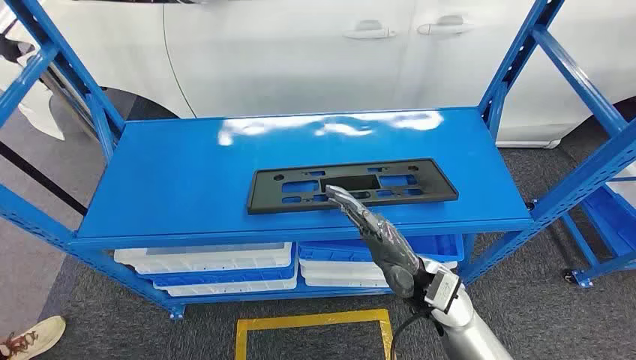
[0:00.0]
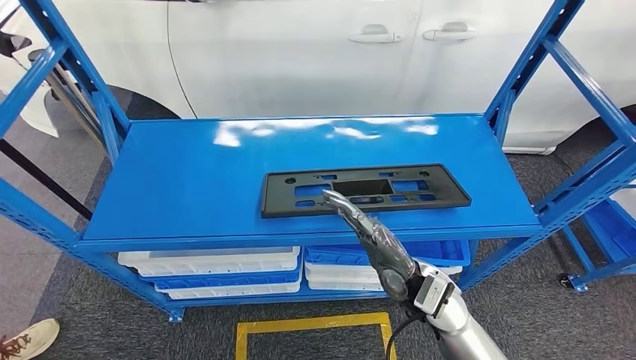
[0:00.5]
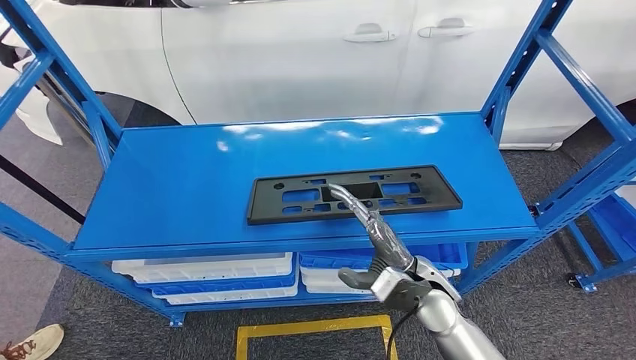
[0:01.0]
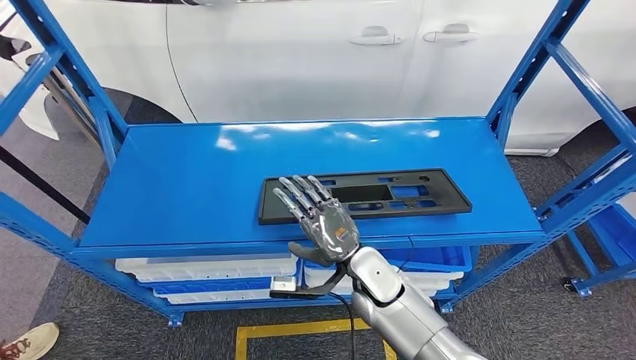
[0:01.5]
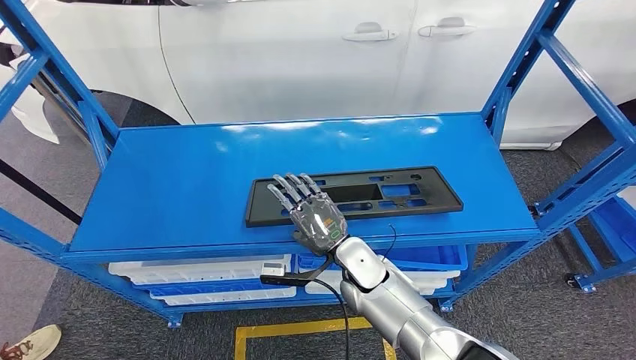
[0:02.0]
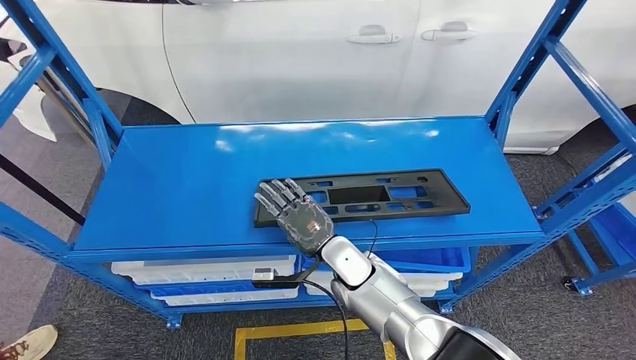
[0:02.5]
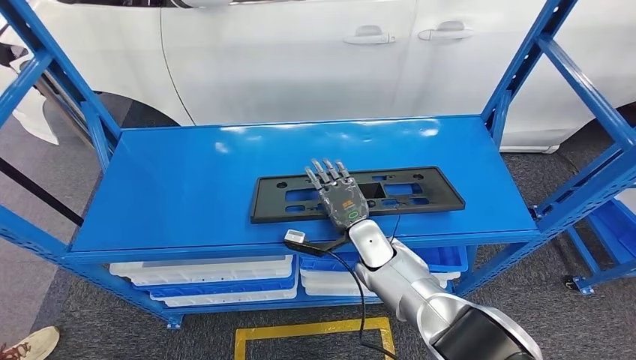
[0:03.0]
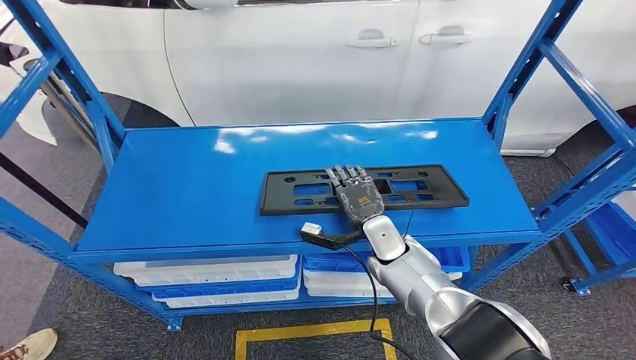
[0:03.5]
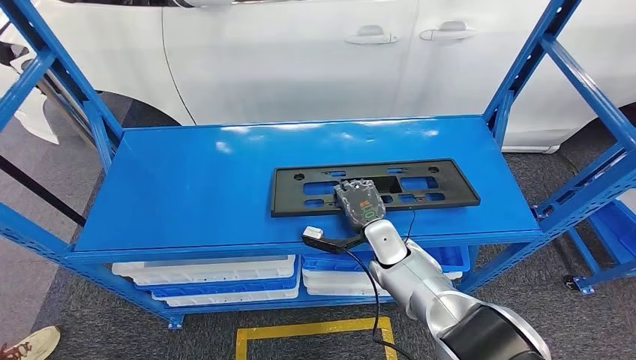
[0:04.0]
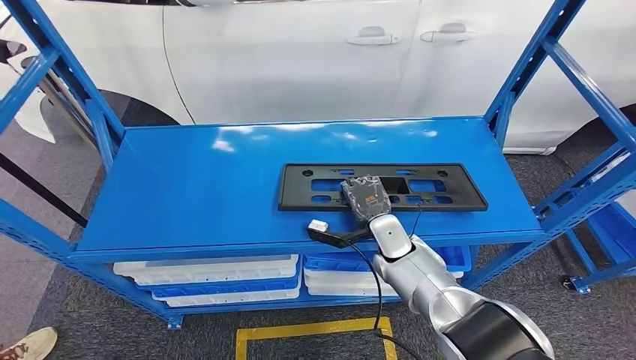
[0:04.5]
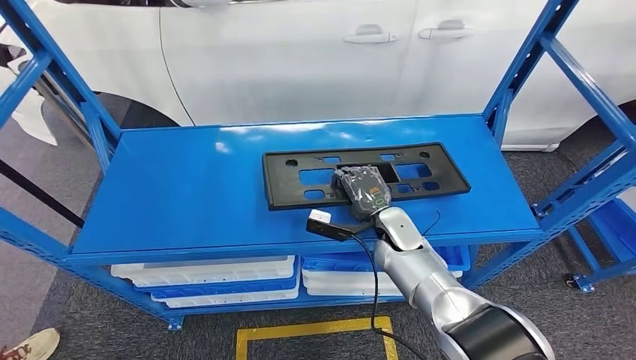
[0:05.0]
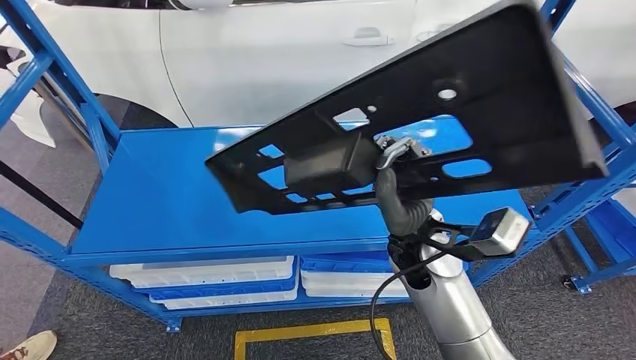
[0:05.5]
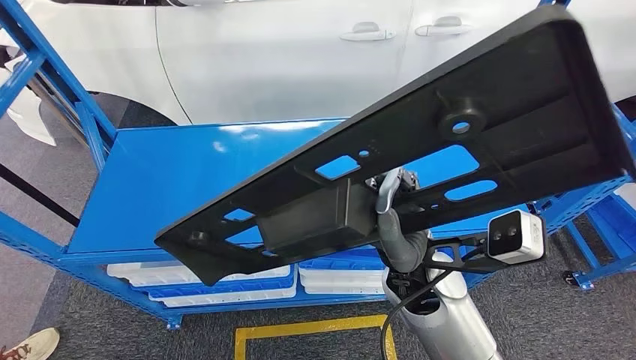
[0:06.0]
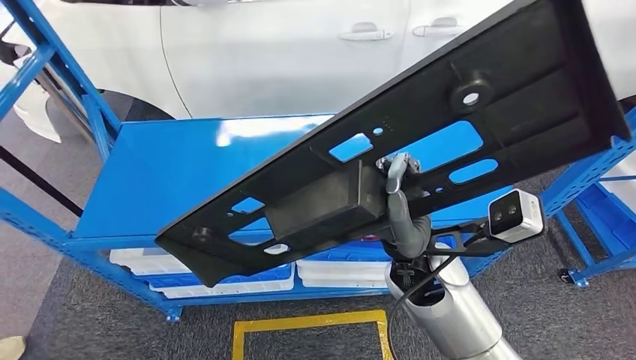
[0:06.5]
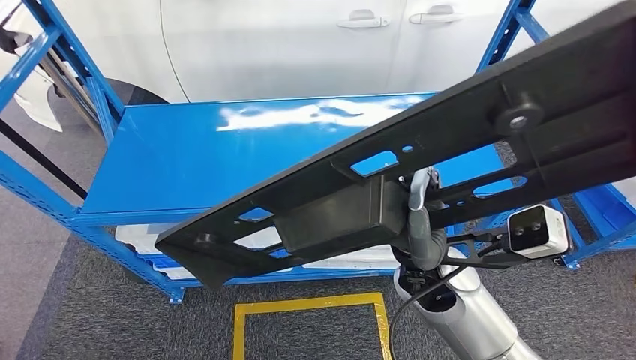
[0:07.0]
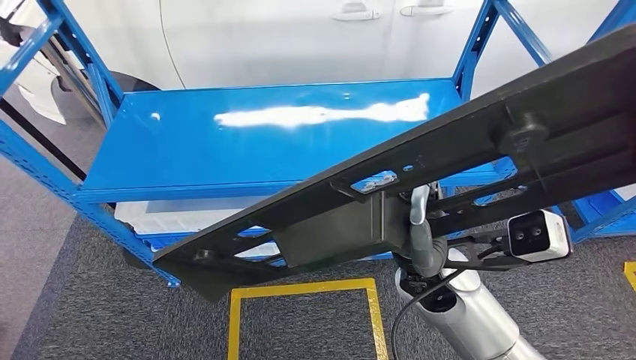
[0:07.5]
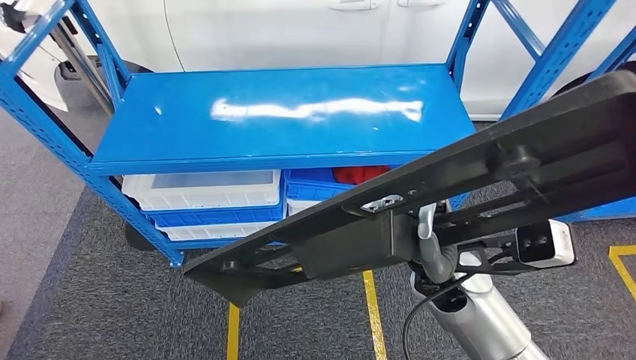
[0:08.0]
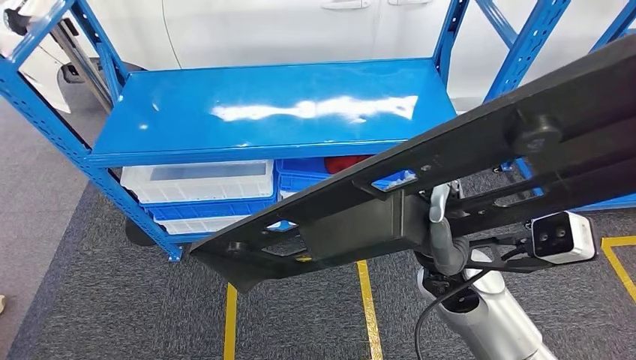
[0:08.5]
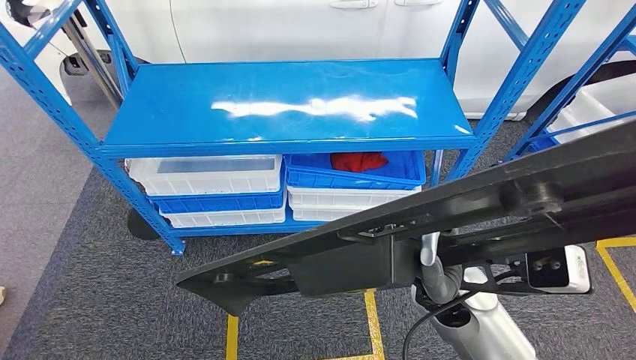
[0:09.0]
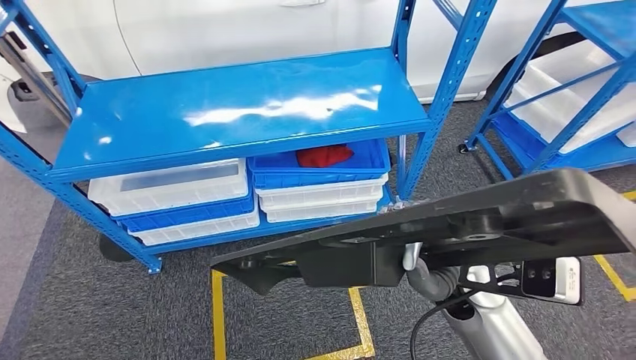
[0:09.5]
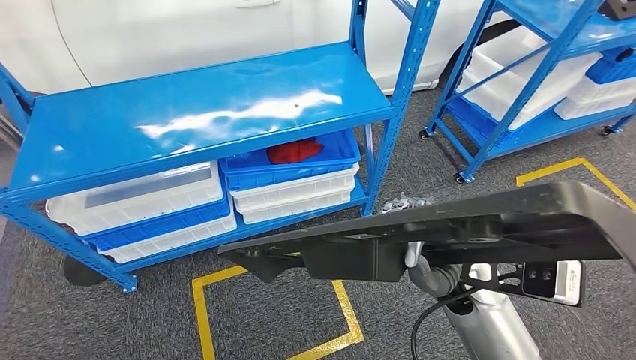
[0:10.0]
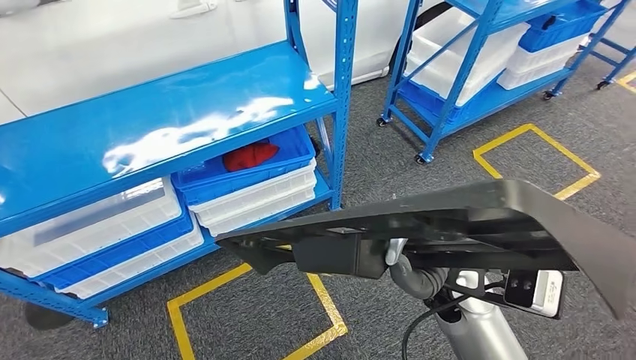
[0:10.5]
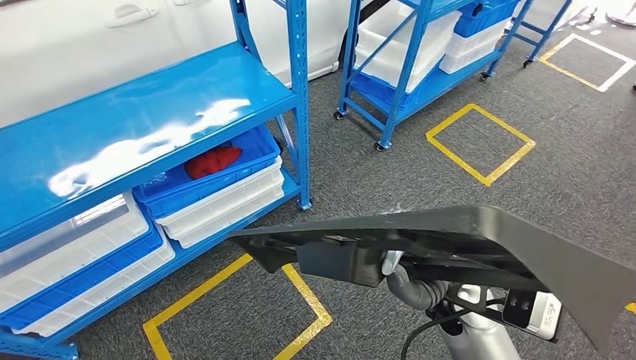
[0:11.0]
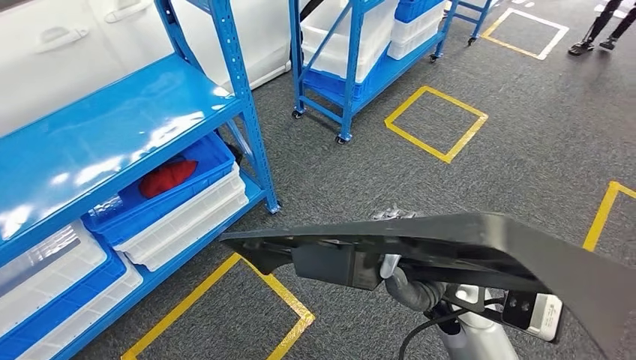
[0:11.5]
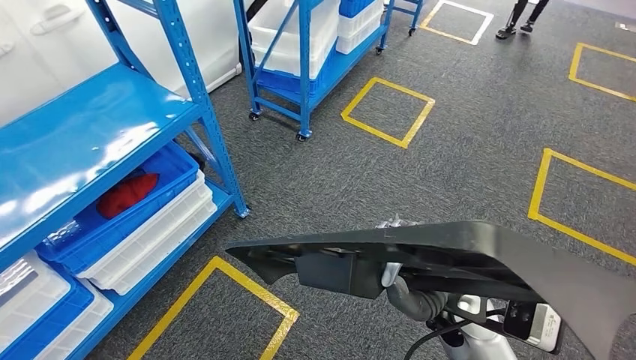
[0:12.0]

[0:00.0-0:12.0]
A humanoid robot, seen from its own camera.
Step, 0:00.0 to 0:06.0: Pick up the large material from the shelf.
0:02.0 to 0:04.0: The right hand is displaced to the right by some 10 cm.

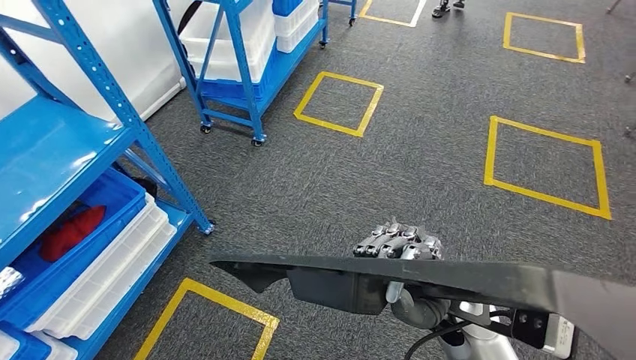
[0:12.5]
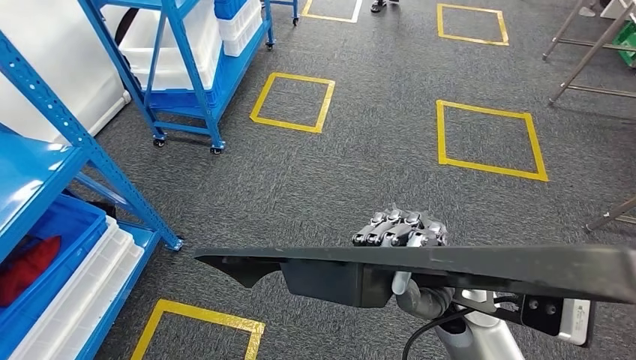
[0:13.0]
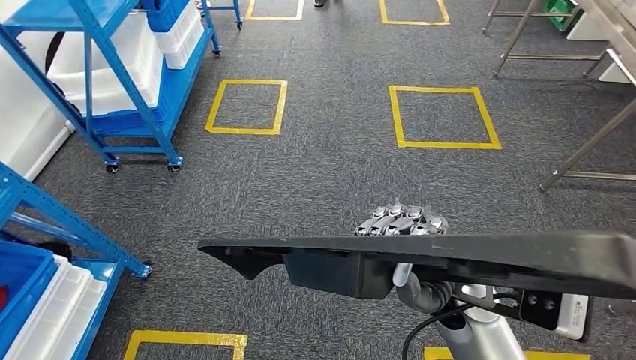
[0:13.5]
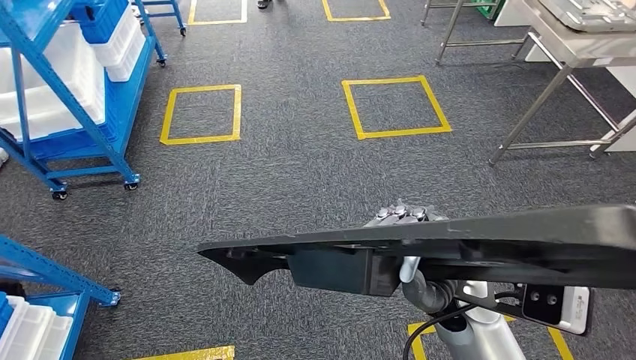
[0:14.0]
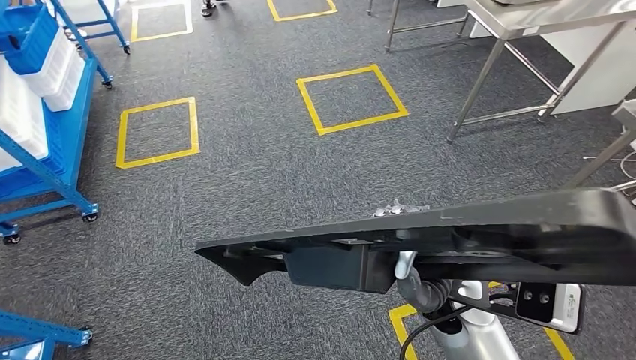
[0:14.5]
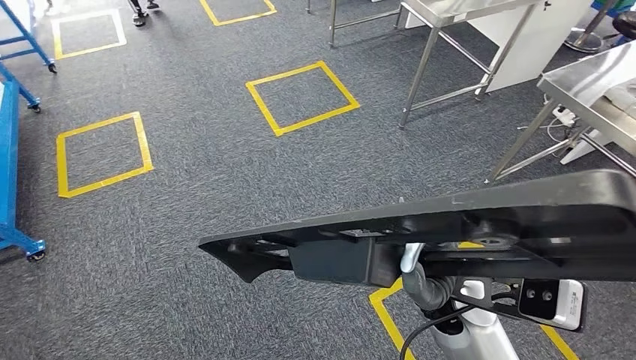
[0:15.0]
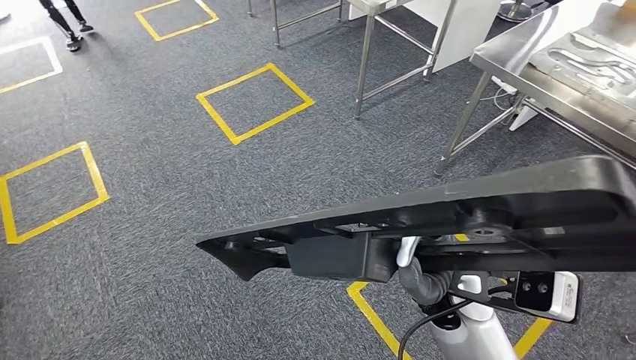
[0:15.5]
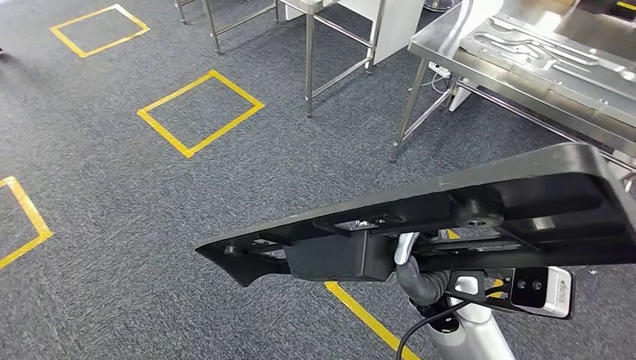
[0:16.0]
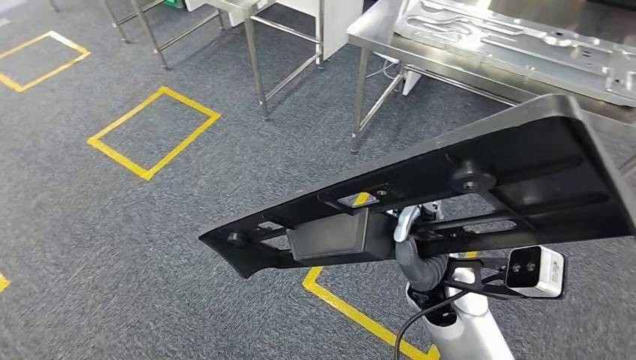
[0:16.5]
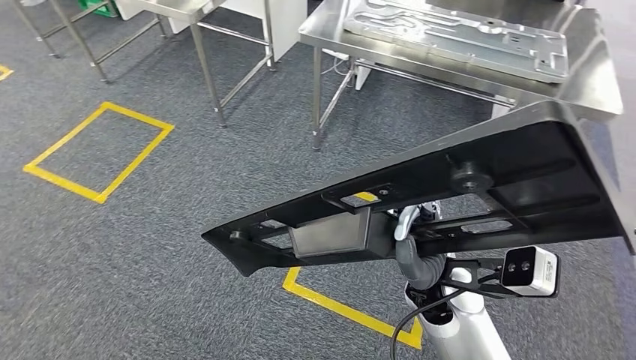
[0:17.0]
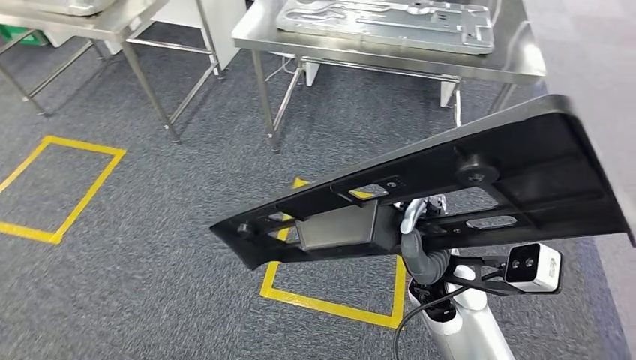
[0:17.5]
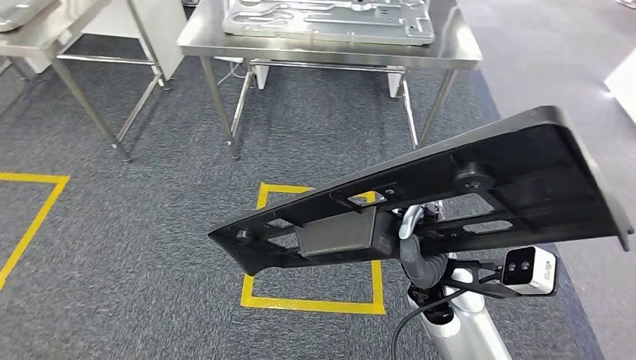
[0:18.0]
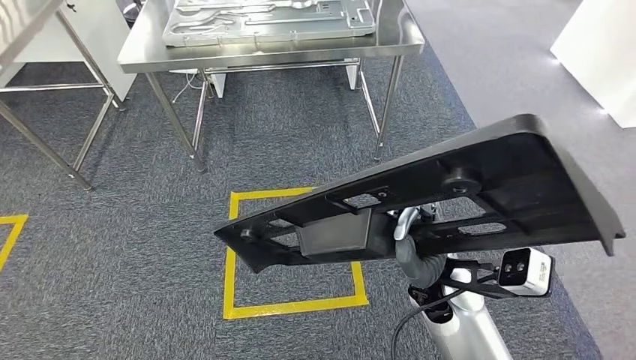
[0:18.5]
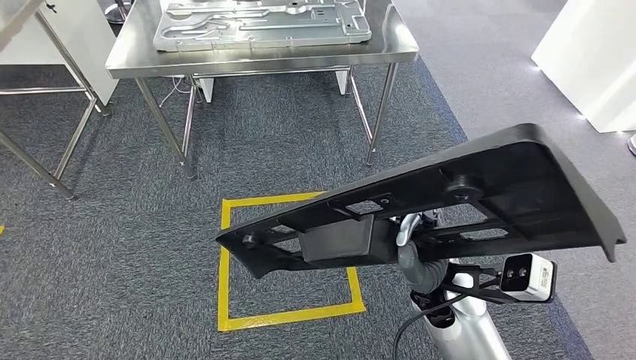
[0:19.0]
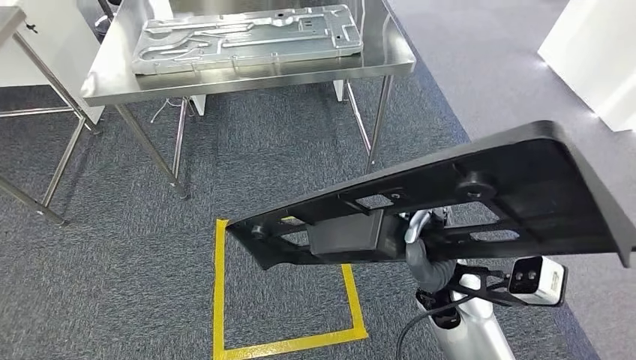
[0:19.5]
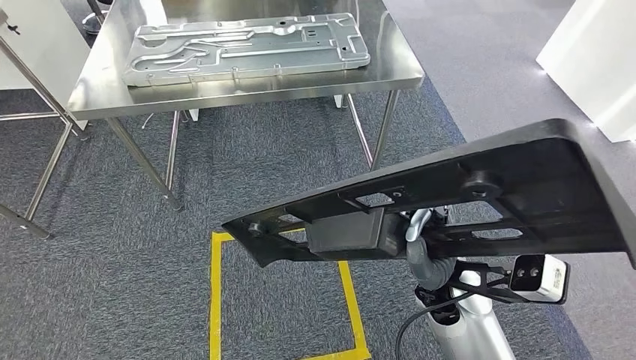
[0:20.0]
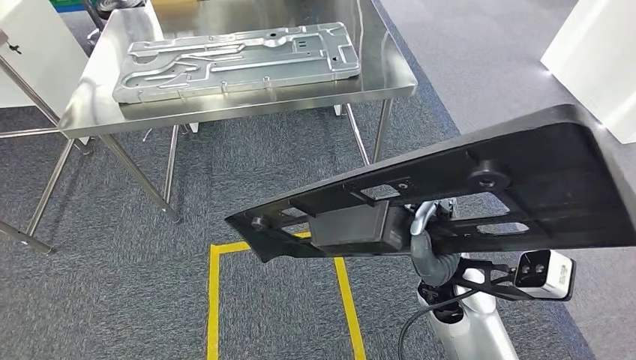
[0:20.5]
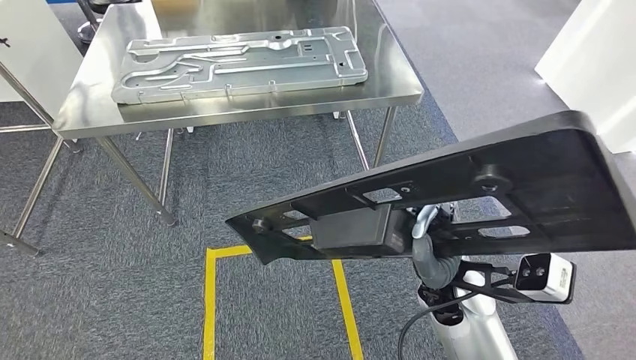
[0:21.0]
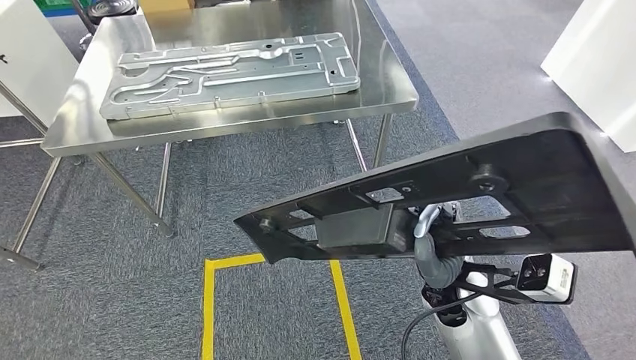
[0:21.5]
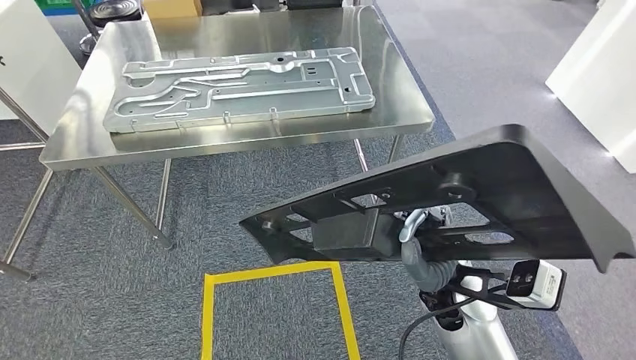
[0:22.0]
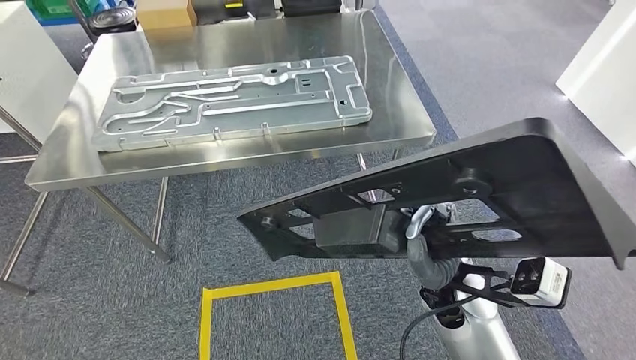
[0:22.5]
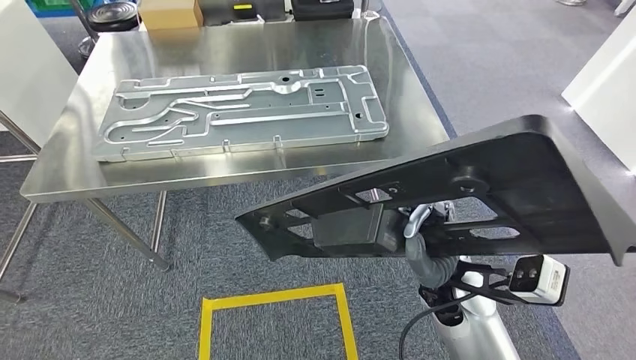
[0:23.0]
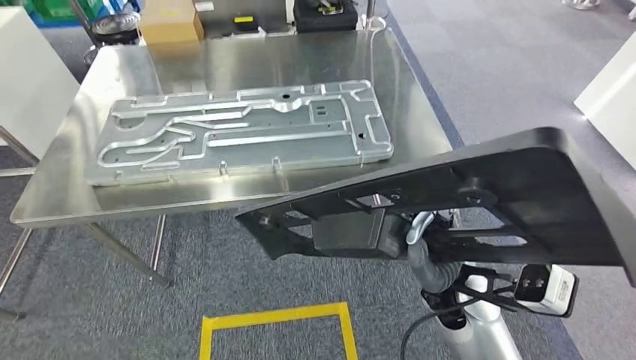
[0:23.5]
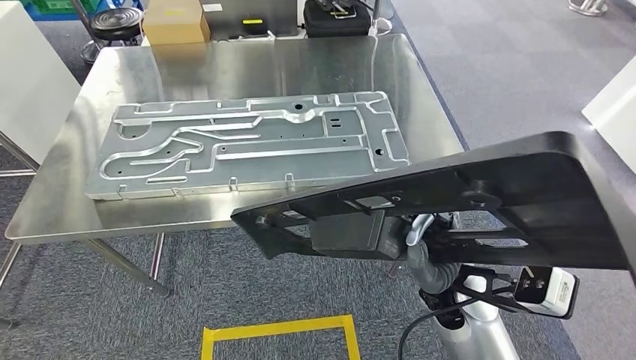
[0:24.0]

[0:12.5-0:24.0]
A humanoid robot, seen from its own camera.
Step, 0:12.5 to 0:21.5: Move the large material to the front of the workbench.
